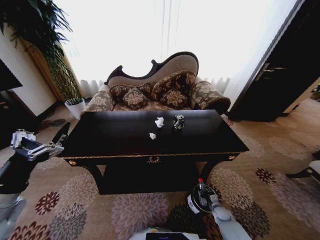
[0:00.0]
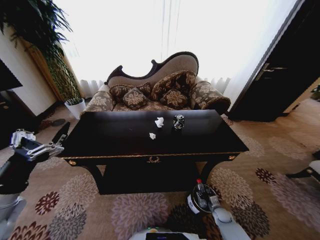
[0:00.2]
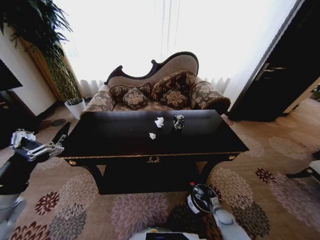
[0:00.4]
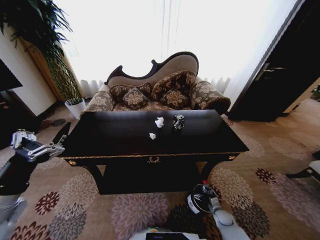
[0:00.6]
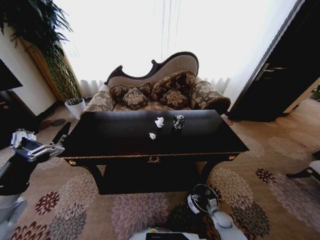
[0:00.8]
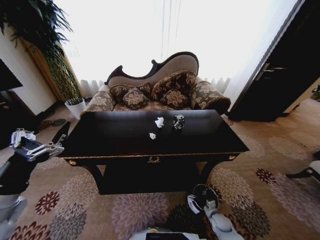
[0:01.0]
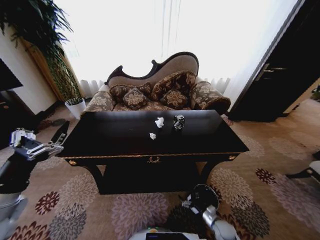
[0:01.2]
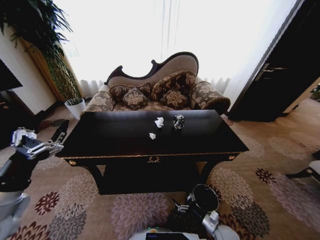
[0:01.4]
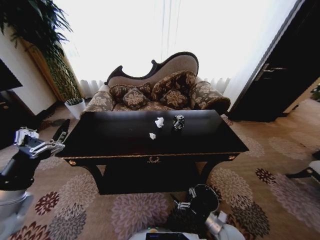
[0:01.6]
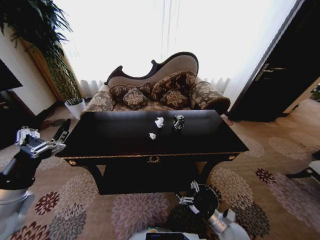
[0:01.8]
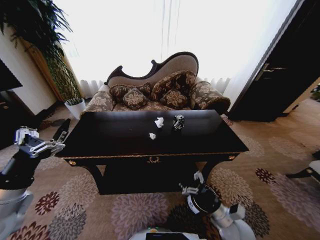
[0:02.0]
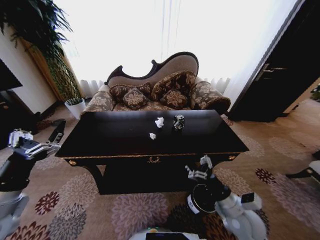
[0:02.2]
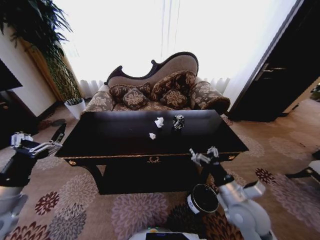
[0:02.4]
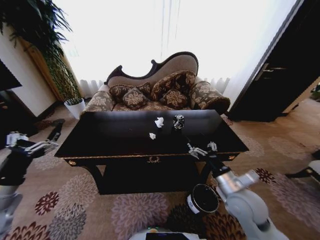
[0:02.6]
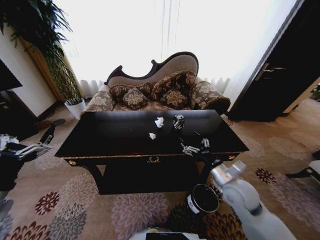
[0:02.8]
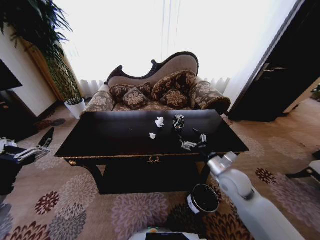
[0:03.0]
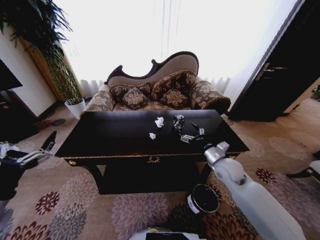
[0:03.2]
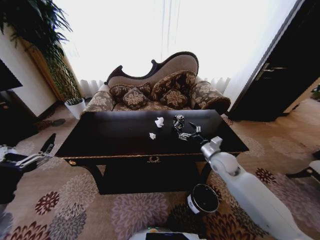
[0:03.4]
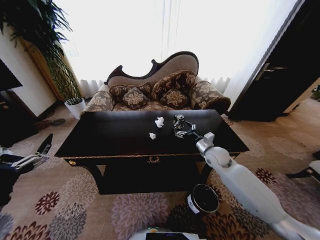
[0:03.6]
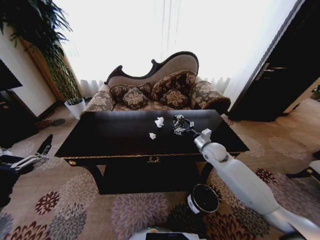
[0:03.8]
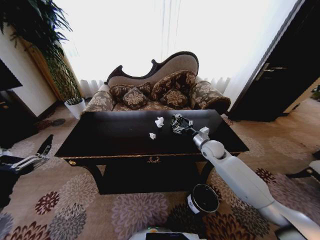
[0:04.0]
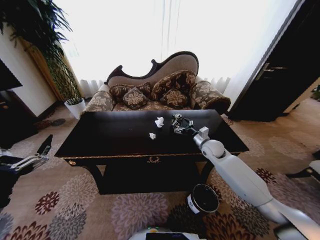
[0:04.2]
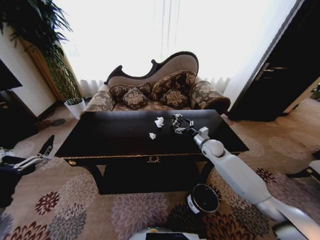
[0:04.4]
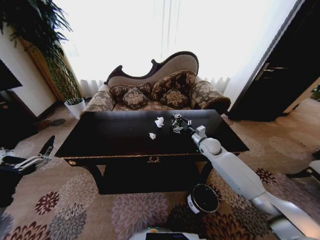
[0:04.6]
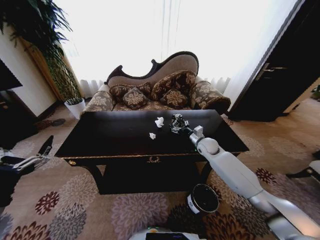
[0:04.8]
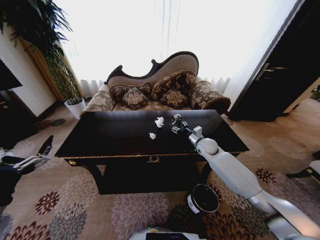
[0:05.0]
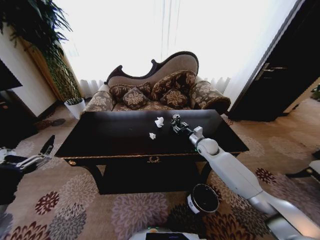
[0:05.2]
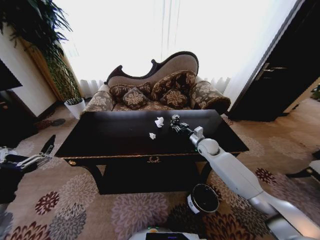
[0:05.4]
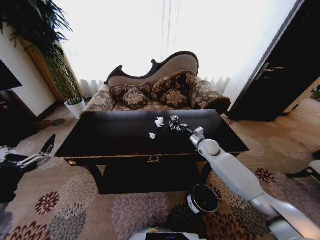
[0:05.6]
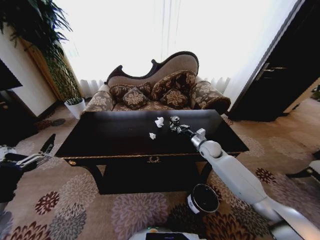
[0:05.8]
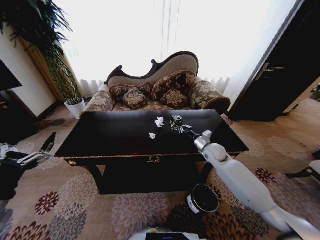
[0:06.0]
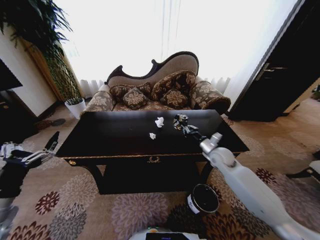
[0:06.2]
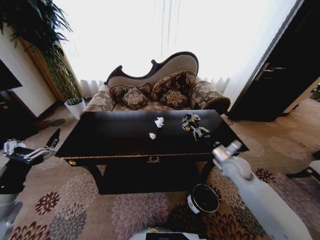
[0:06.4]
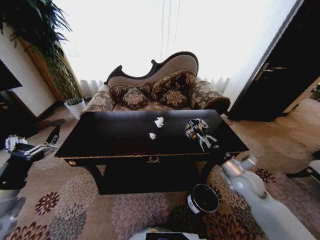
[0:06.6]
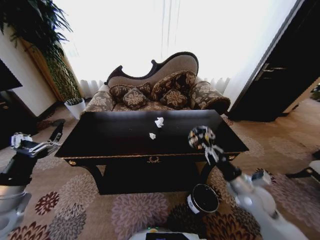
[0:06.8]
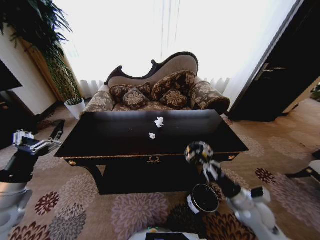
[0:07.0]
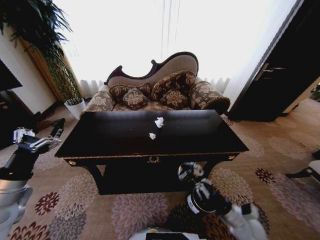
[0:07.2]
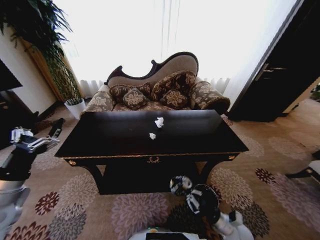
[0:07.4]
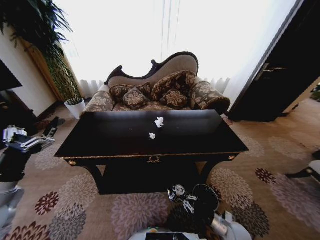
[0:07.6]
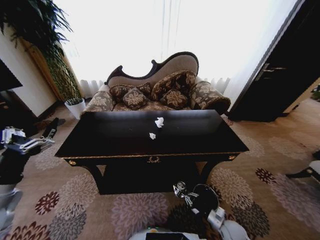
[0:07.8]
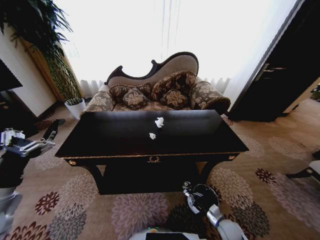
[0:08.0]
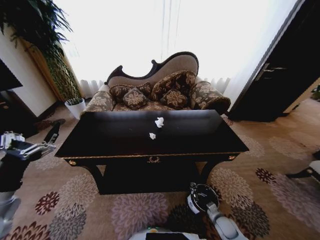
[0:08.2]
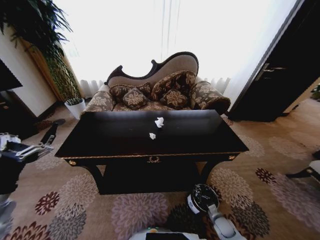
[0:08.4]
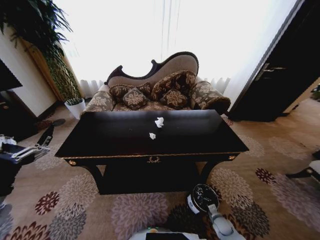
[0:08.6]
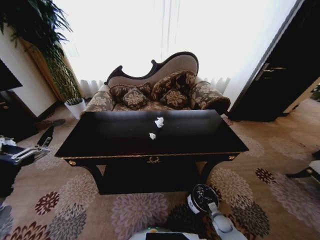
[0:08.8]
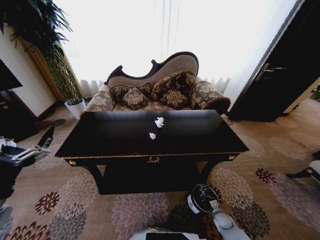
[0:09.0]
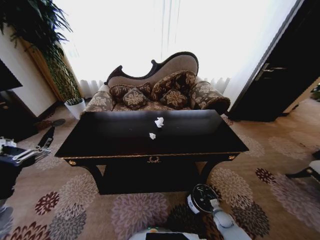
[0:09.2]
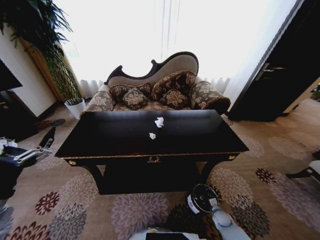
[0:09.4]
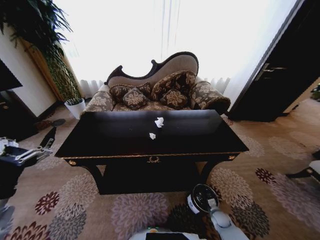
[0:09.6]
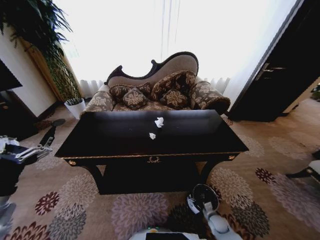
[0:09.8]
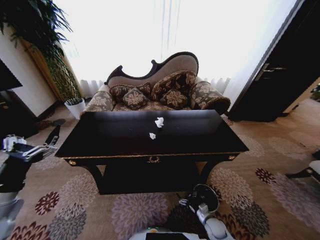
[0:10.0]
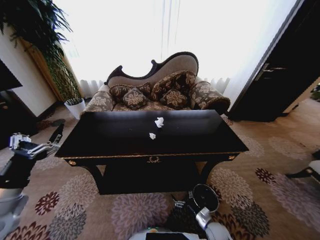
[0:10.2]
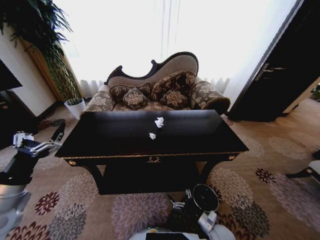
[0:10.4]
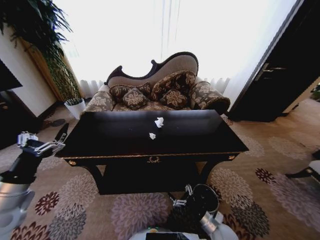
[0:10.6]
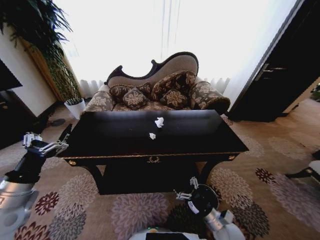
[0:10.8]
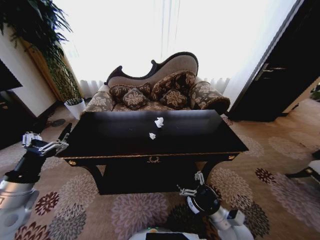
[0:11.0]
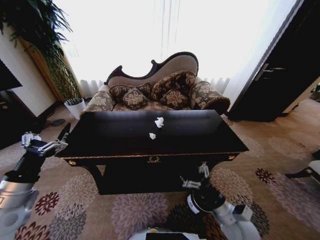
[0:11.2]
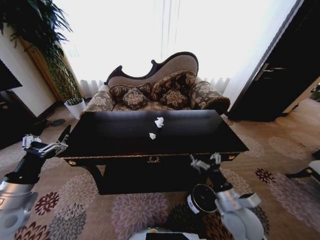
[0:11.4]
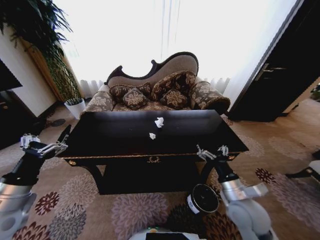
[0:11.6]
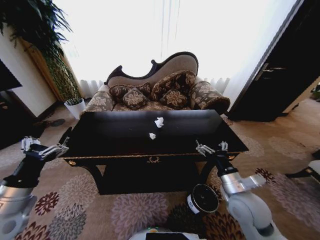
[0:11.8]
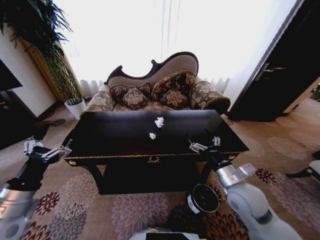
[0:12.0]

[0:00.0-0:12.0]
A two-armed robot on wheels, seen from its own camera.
Task of the whole recording: Move to the front of the table and place the trash on the table into the trash bin.
0:00.0 to 0:01.6: The right gripper shifts about 20 cm upward, backward and to the left, and opens its fingers.
0:01.6 to 0:03.0: The right gripper travels upward and forward by approximately 30 cm, while the left gripper shifts by approximately 5 cm.
0:03.0 to 0:04.4: The right gripper shifts roughly 15 cm forward.
0:04.4 to 0:06.0: The right gripper closes up.
0:06.0 to 0:07.6: The right gripper travels backward and downward by roughly 35 cm.
0:07.6 to 0:09.0: The right gripper moves downward and forward, some 15 cm.
0:09.0 to 0:10.4: The right gripper goes approximately 15 cm upward, to the left and backward, and opens up.
0:10.4 to 0:12.0: The right gripper moves upward, about 30 cm.

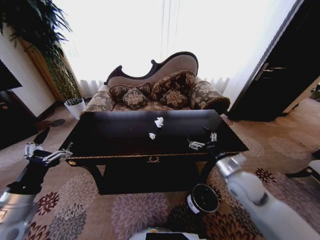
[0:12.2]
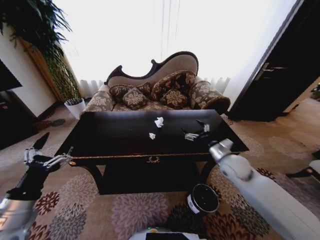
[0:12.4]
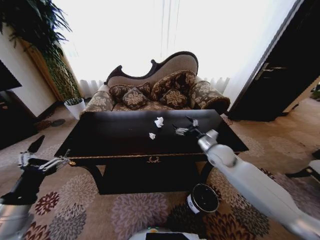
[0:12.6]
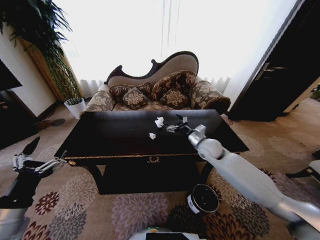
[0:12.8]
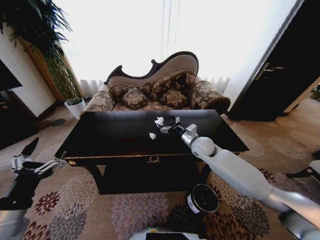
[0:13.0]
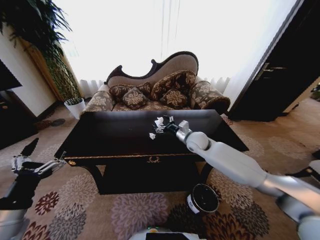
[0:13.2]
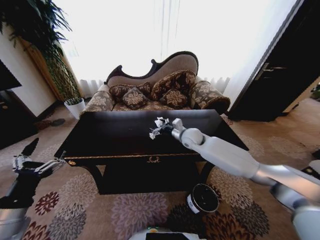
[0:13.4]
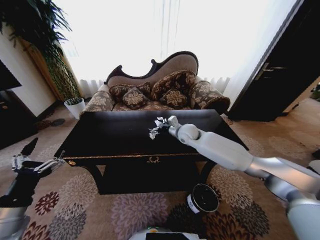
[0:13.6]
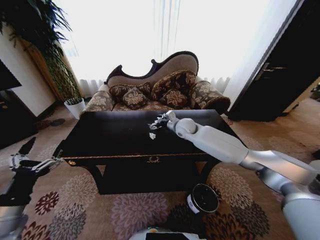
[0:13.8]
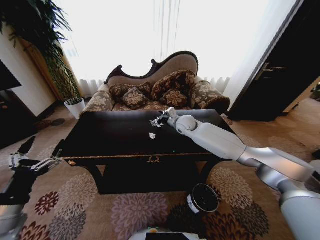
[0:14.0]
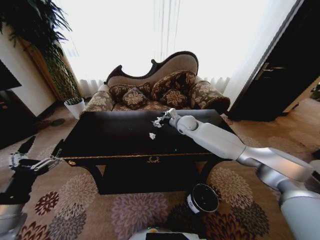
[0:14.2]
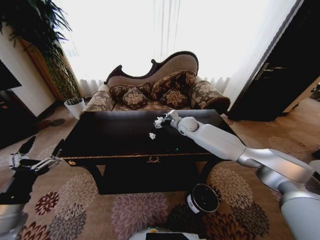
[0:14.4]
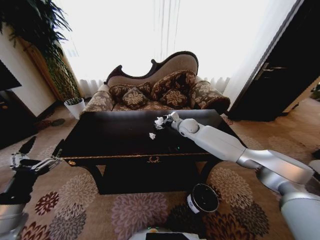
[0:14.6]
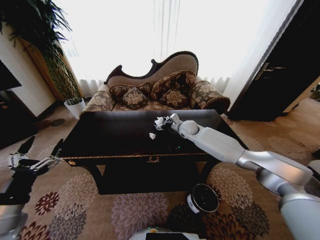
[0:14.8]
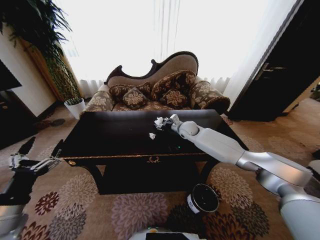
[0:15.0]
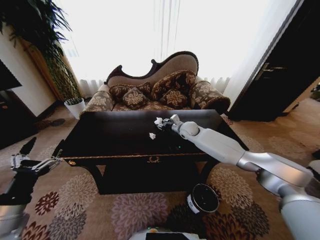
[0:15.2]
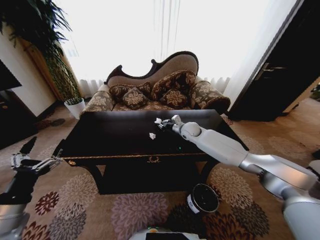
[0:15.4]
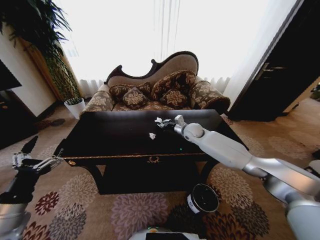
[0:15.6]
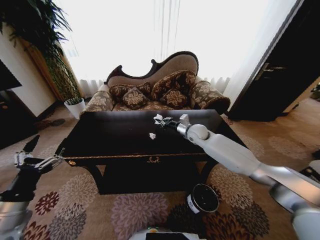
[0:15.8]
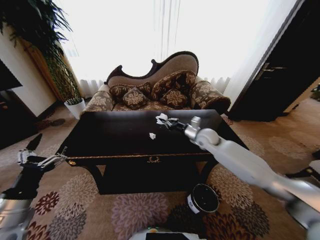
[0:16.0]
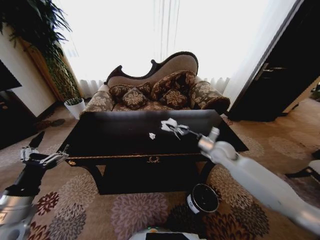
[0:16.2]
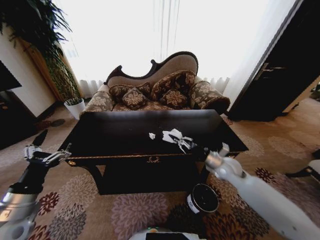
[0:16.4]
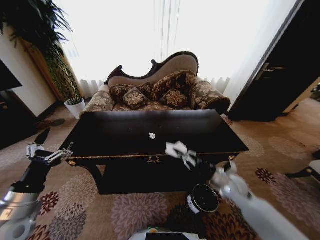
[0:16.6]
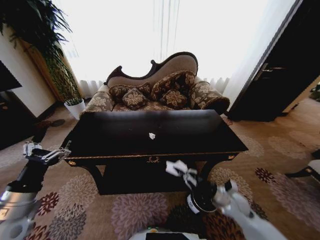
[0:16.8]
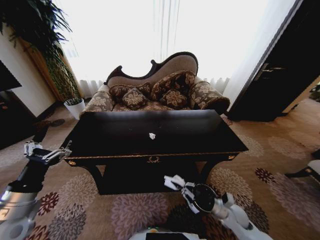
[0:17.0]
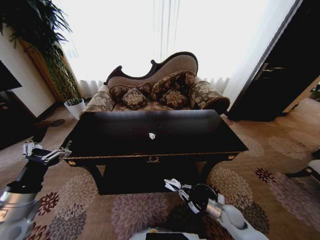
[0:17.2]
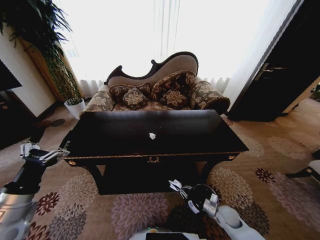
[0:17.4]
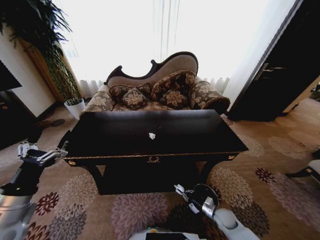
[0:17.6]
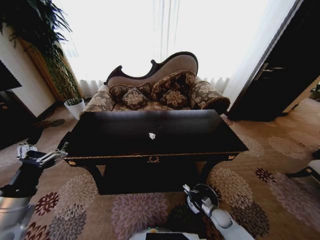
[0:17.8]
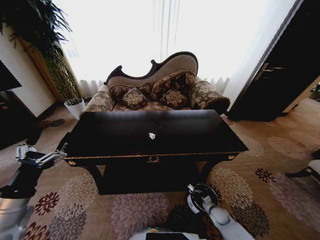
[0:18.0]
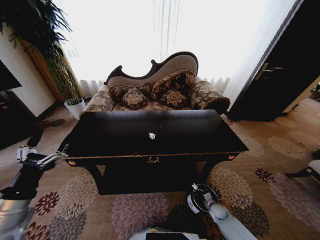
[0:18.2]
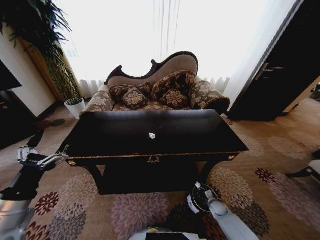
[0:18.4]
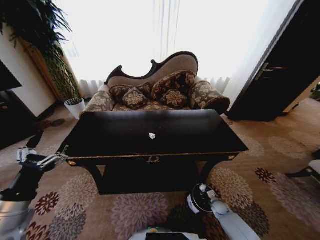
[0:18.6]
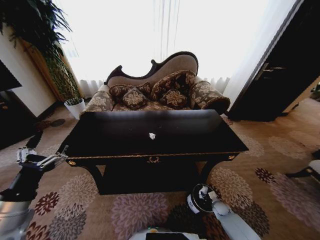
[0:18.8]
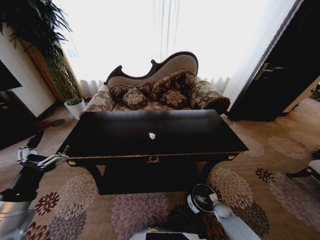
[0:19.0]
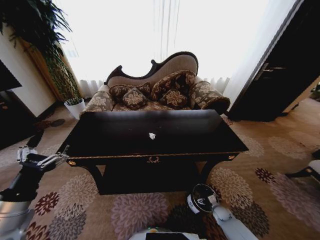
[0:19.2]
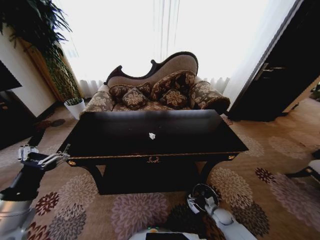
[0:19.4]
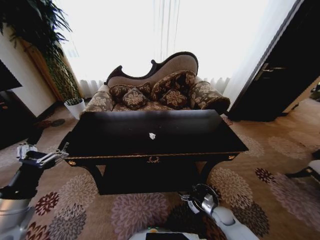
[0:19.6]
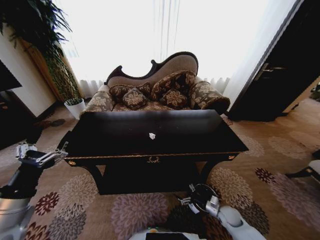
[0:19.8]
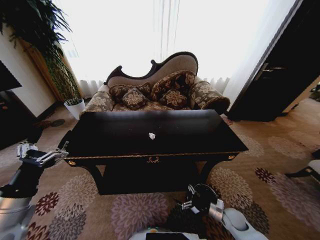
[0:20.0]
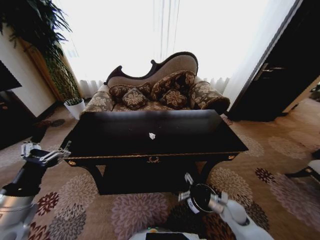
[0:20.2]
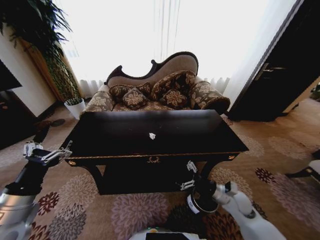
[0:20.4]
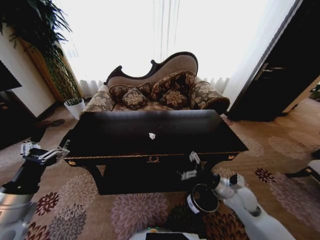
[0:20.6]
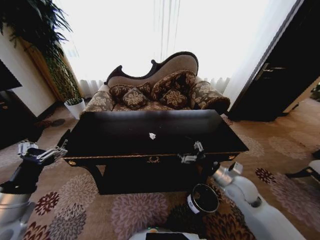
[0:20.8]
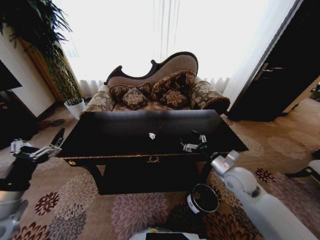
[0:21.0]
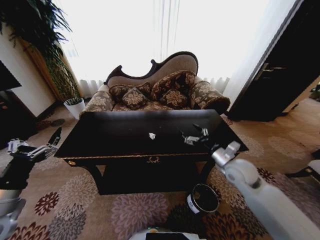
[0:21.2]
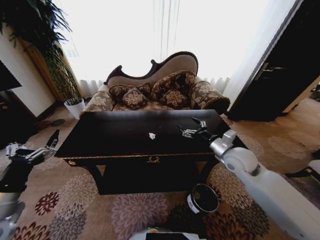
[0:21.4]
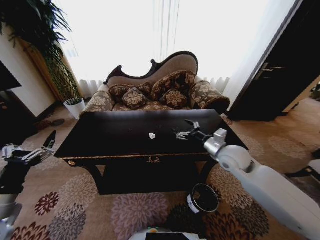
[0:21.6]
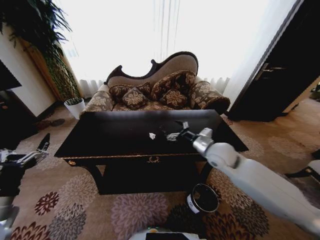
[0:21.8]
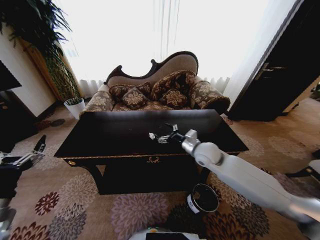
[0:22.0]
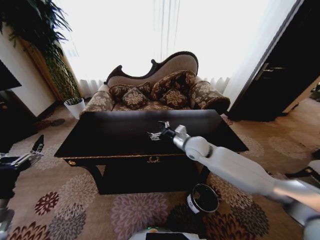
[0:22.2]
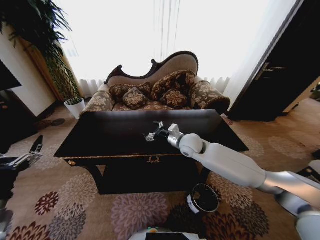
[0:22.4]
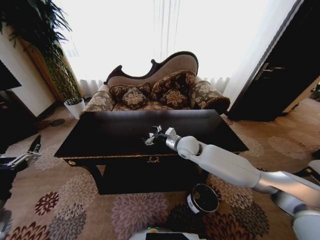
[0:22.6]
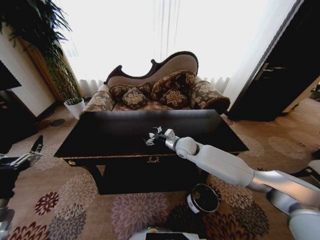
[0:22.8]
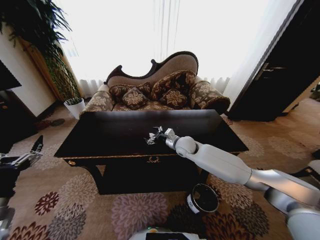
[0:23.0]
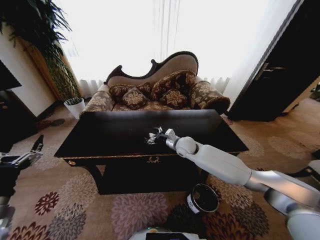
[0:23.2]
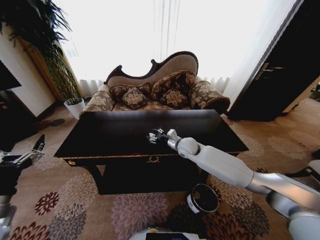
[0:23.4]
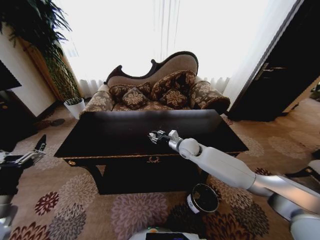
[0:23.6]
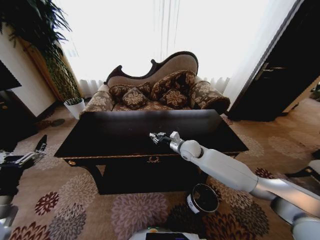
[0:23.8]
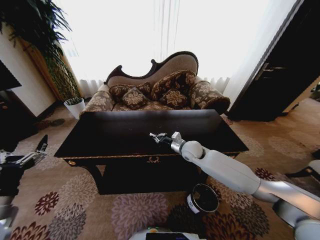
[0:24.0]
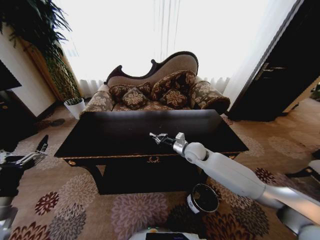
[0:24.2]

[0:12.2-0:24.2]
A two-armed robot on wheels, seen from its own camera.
Task of the whole recording: Move to the front of the table and place the trash on the table into the trash bin.
0:12.2 to 0:13.8: The right gripper moves forward and to the left, roughly 30 cm.
0:13.8 to 0:15.2: The right gripper changes place by approximately 5 cm, and closes its fingers.
0:15.2 to 0:16.6: The right gripper heads backward and to the right, covering approximately 30 cm, and closes up.
0:16.6 to 0:18.2: The right gripper shifts roughly 30 cm downward.
0:18.2 to 0:19.8: The right gripper travels upward by about 10 cm, and opens.
0:19.8 to 0:21.2: The right gripper goes approximately 30 cm upward.
0:21.2 to 0:22.6: The right gripper heads to the left and forward, covering approximately 20 cm.
0:22.6 to 0:24.2: The right gripper shifts by some 5 cm, and closes its fingers.
